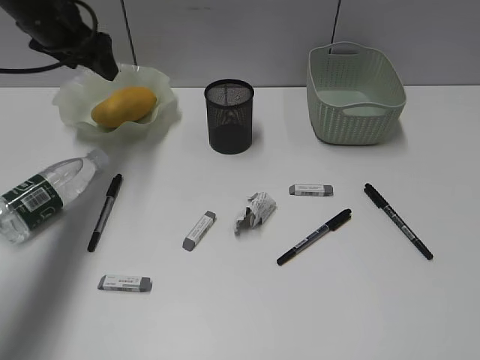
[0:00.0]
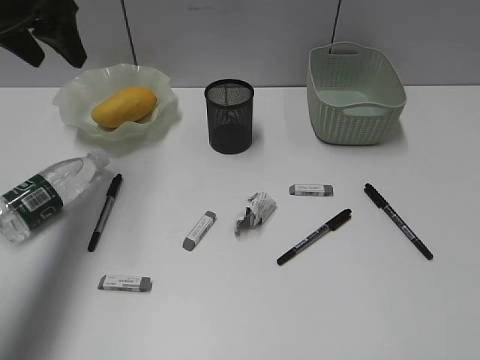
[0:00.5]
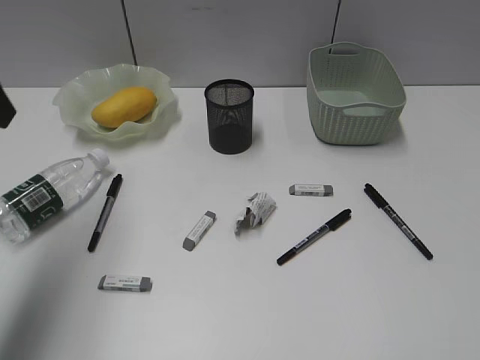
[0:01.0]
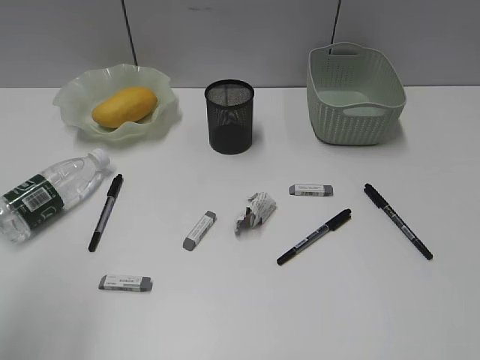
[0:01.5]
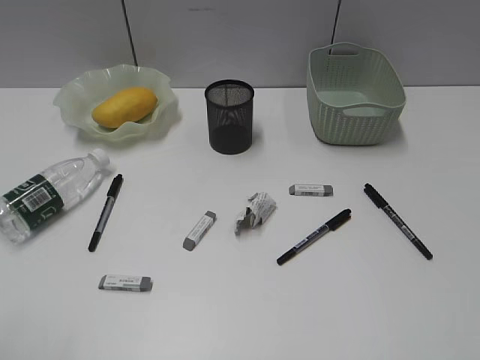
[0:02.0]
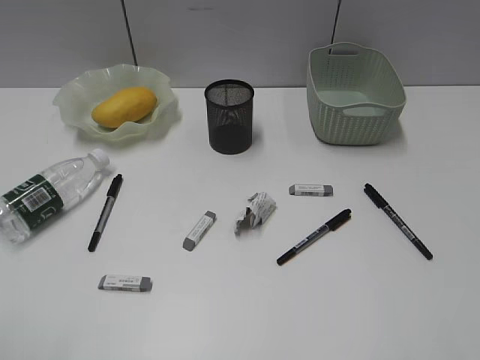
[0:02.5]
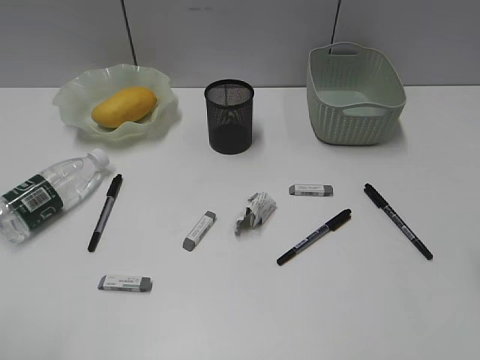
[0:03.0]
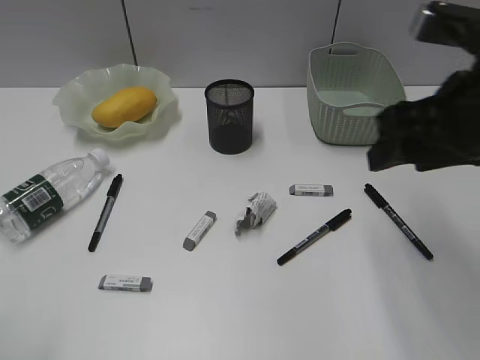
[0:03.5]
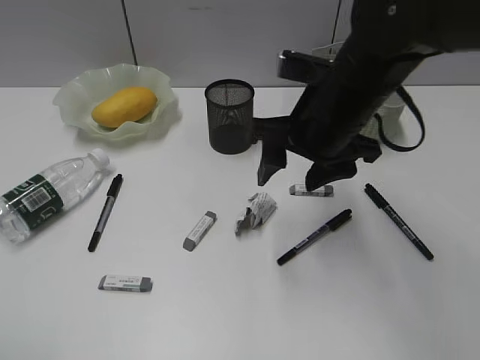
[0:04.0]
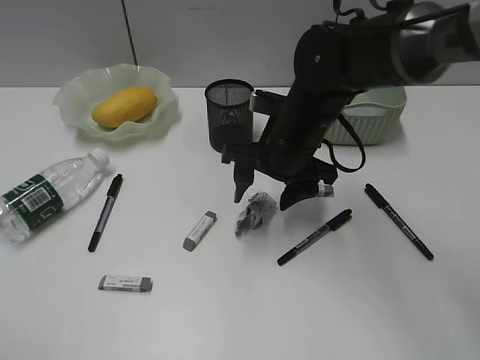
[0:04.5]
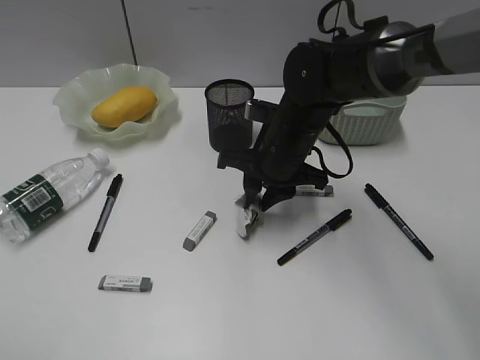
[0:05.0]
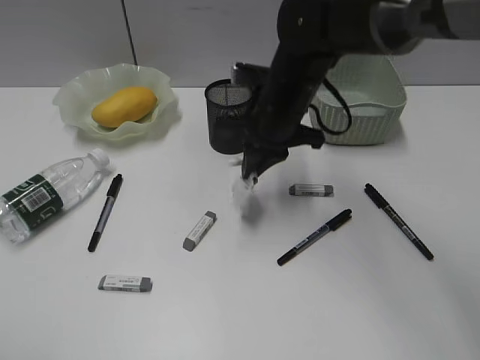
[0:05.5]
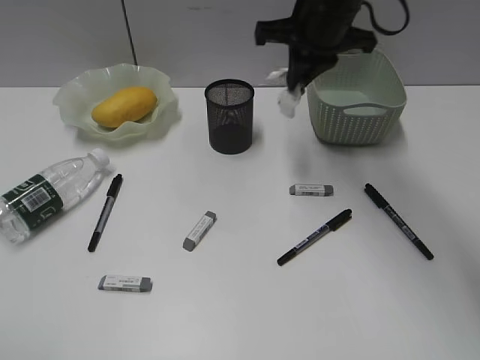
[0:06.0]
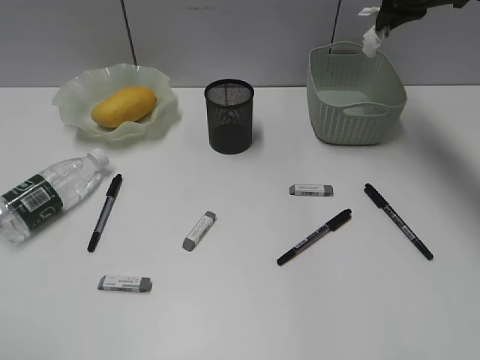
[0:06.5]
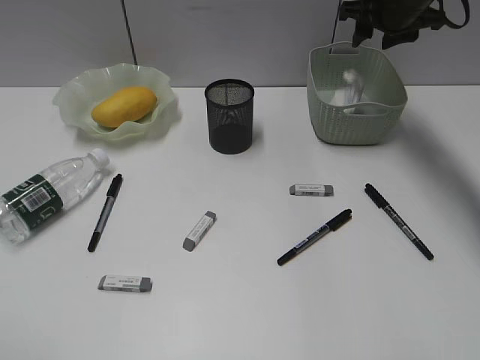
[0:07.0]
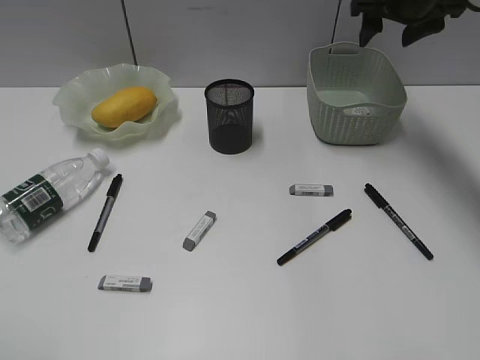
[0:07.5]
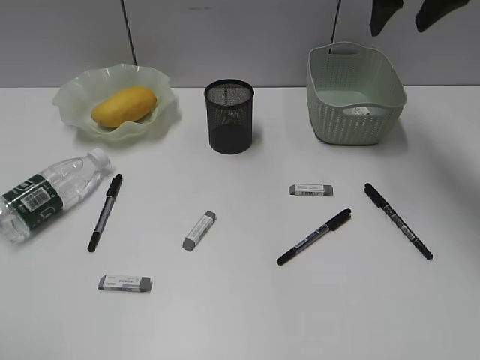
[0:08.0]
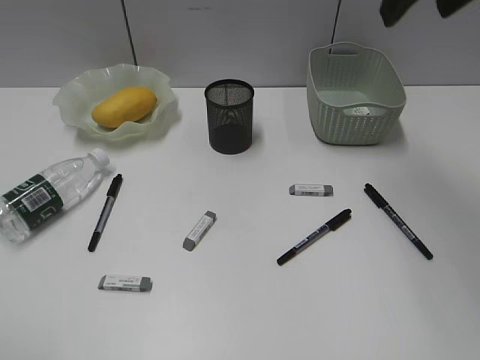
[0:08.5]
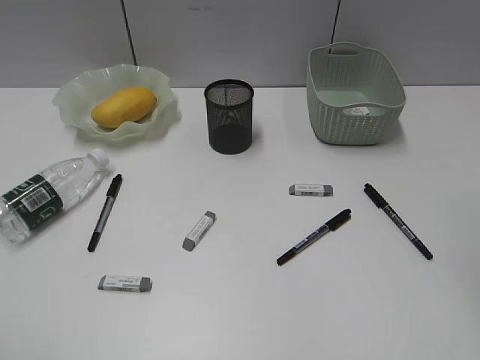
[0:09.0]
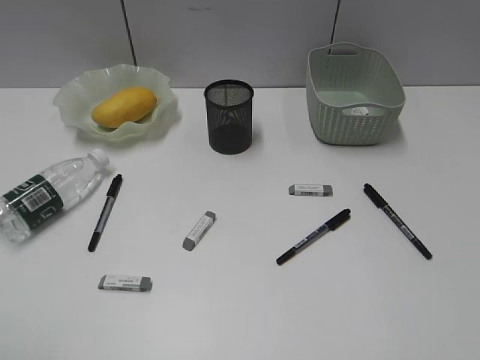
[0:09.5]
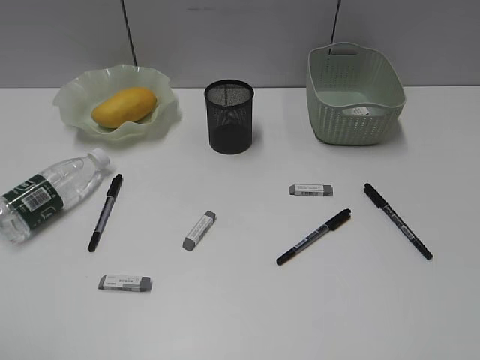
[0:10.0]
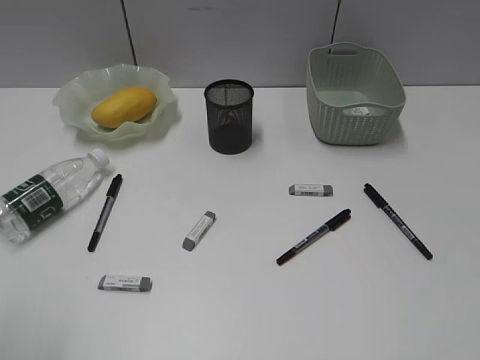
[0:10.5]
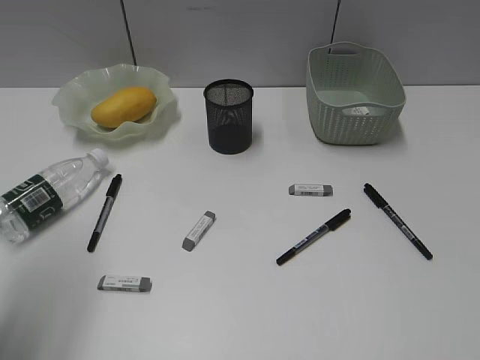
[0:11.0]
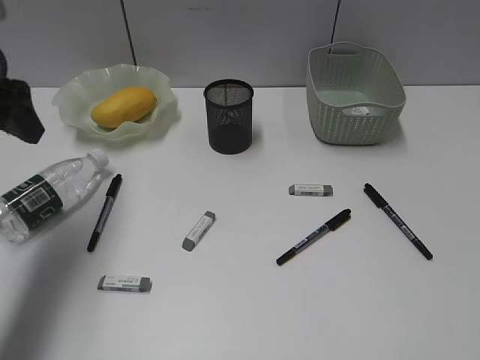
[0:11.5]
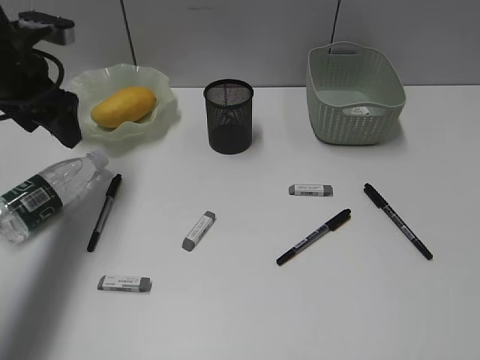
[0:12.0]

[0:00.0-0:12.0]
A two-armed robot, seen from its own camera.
Step, 0:00.0 to 0:05.0: Grasp the waste paper with right gripper.
Step, 0:05.5 to 0:07.0: Place the waste paper in the basket with right gripper.
0:00.0 to 0:02.0: The left gripper travels backward by some 40 cm.
0:02.0 to 0:04.0: The right gripper shifts about 40 cm forward and to the left.
0:04.0 to 0:06.0: The right gripper shifts about 15 cm forward and upward, and closes its fingers.
0:06.0 to 0:08.0: The right gripper moves to the right and upward, some 10 cm, and opens up.
0:08.0 to 0:10.0: The right gripper is displaced backward by about 40 cm.
0:10.0 to 0:12.0: The left gripper moves forward, about 40 cm.

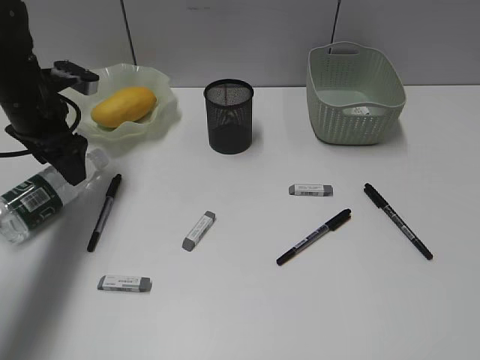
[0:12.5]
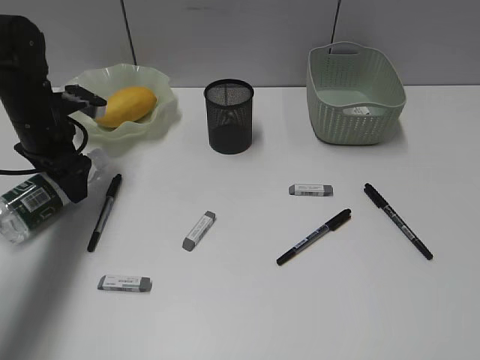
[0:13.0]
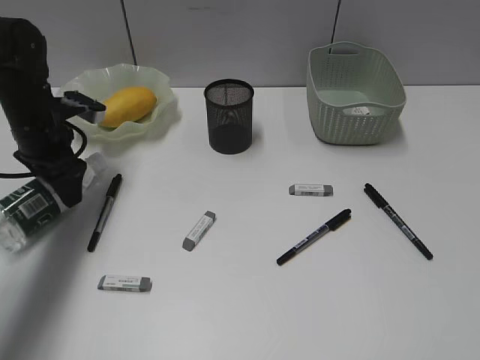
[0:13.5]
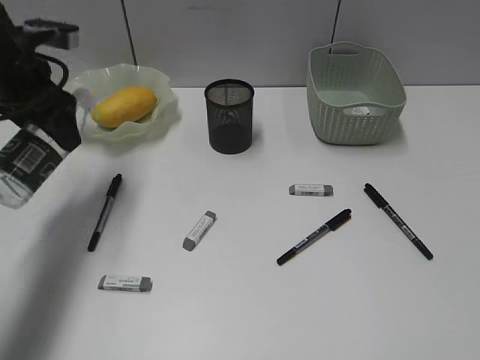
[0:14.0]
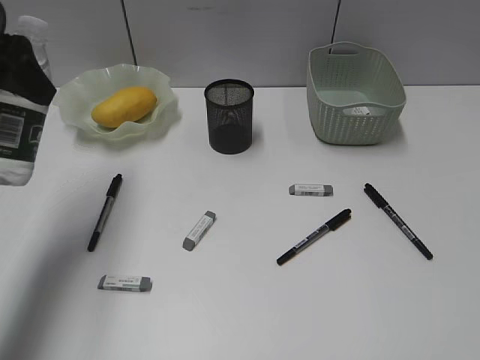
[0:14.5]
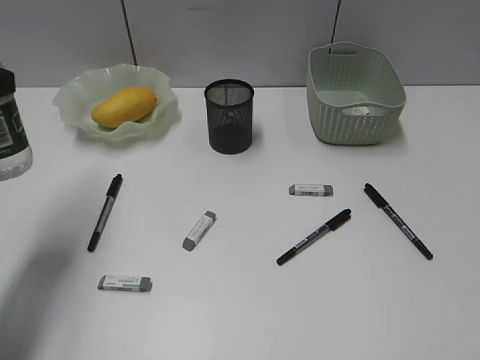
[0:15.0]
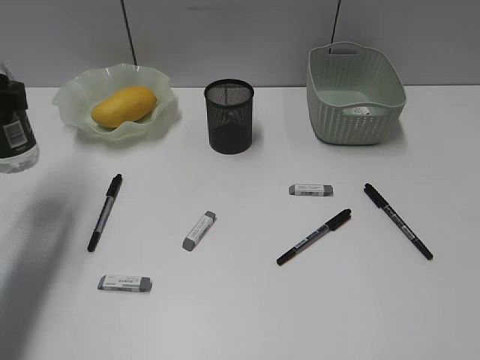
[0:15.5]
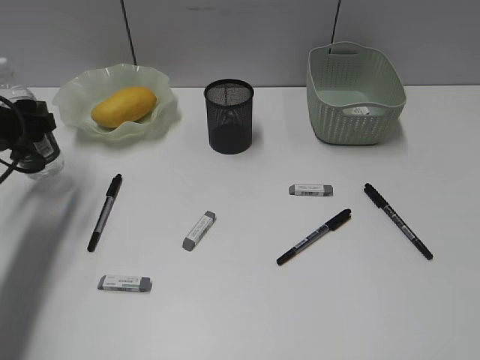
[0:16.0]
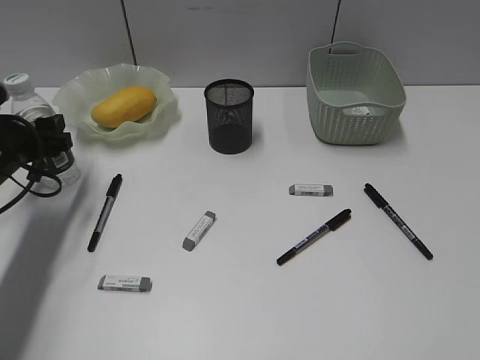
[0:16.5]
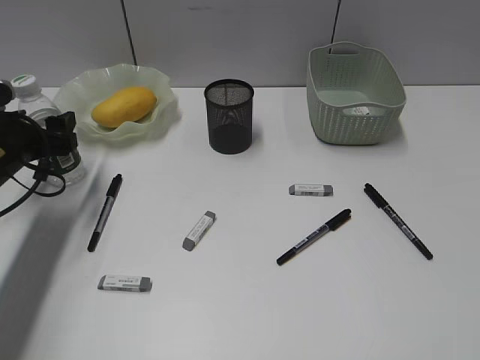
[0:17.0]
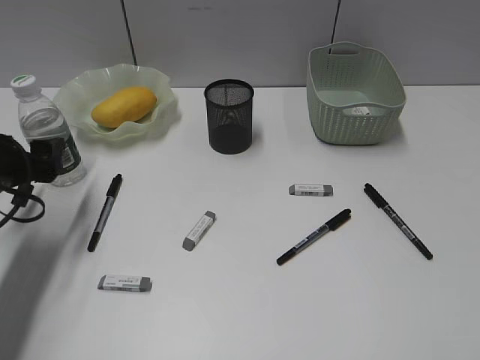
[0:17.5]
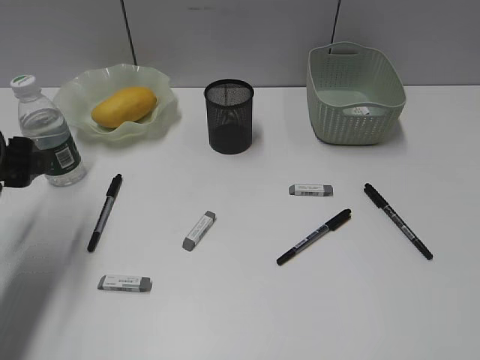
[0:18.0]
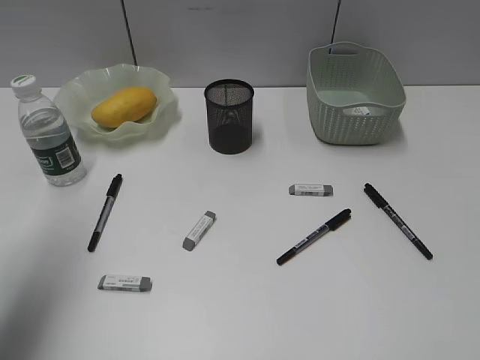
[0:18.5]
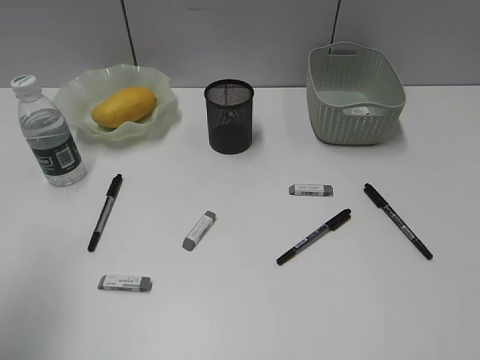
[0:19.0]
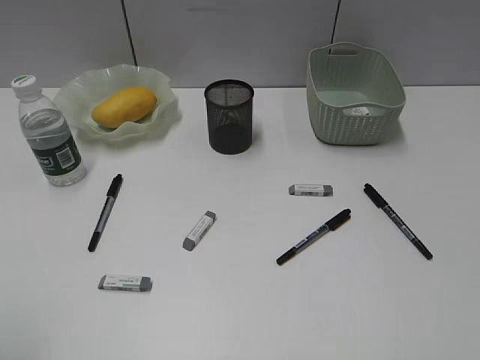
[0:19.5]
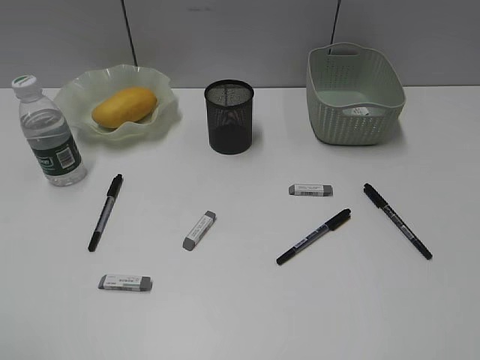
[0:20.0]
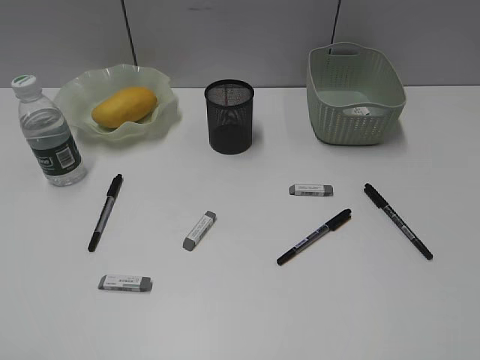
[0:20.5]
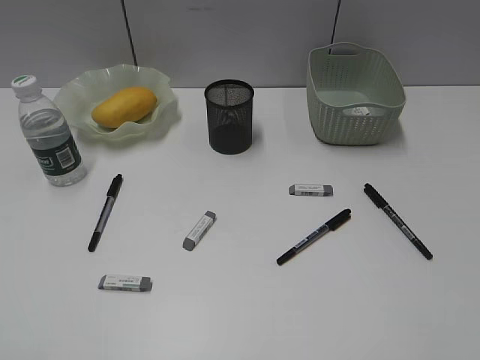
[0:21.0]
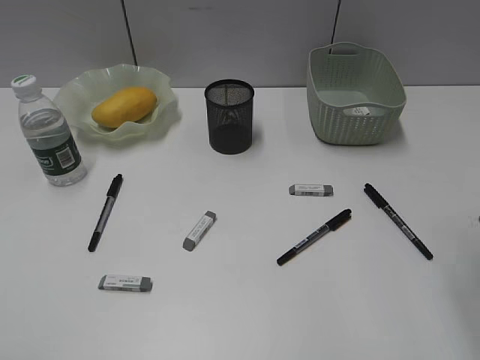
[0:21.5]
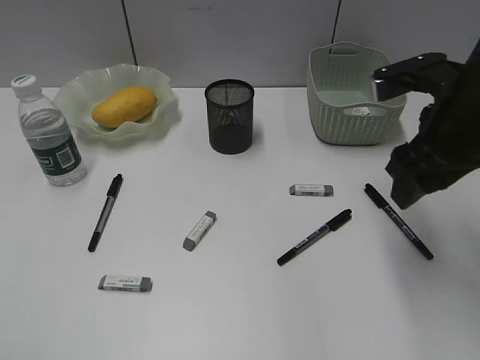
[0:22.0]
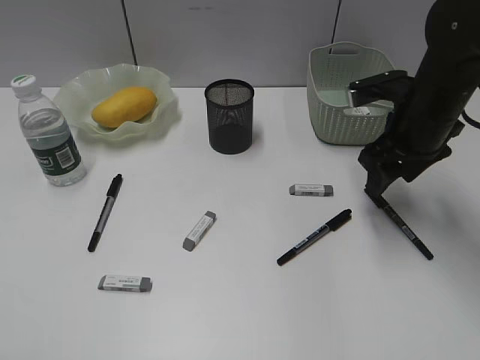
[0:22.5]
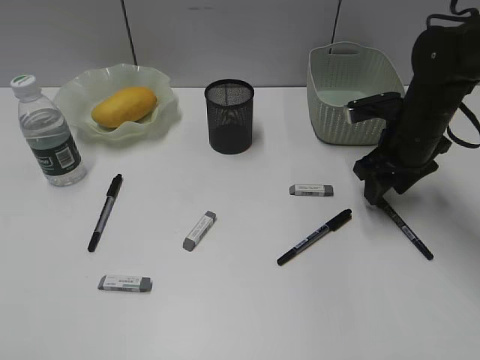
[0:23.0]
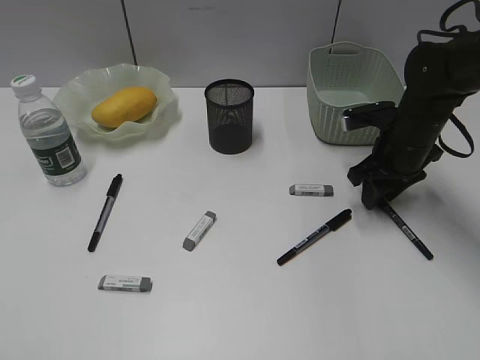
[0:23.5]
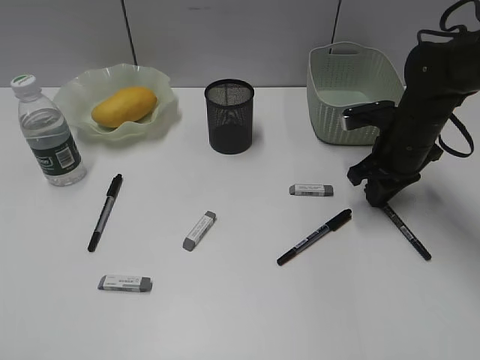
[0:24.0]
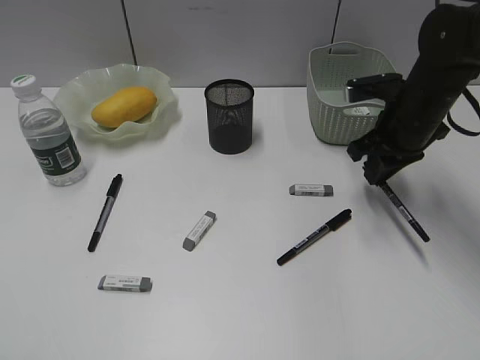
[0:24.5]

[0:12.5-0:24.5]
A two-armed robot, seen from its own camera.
Step, 0:13.5 to 0:17.5: Stand the bottle with left gripper.
Step, 0:18.0 to 0:24.0: Grasp the black pen with right gripper.
0:12.5 to 0:14.5: The left gripper shifts about 15 cm upward and backward.
0:14.5 to 0:16.5: The left gripper goes approximately 20 cm downward.
0:16.5 to 0:18.5: The left gripper is displaced upward and backward by about 20 cm.
0:18.5 to 0:20.5: The left gripper shifts approximately 25 cm backward.
0:20.5 to 0:22.5: The right gripper is displaced forward by approximately 35 cm.
0:22.5 to 0:24.5: The right gripper closes its fingers.

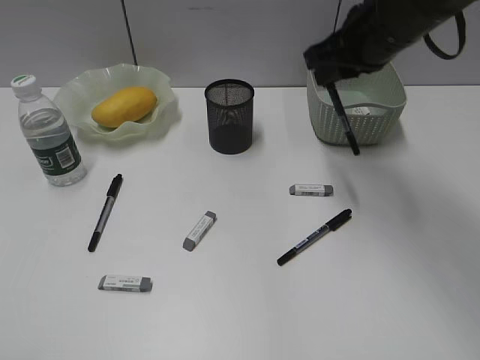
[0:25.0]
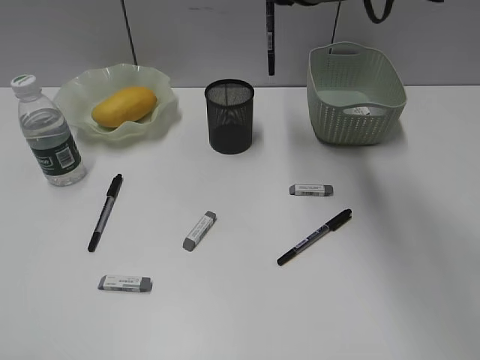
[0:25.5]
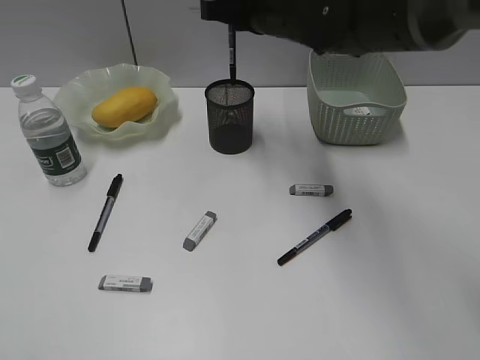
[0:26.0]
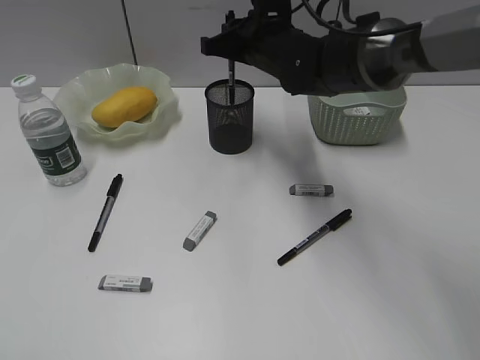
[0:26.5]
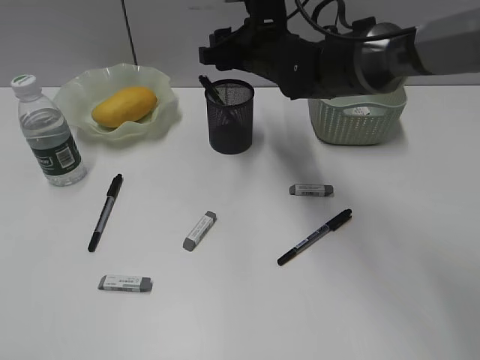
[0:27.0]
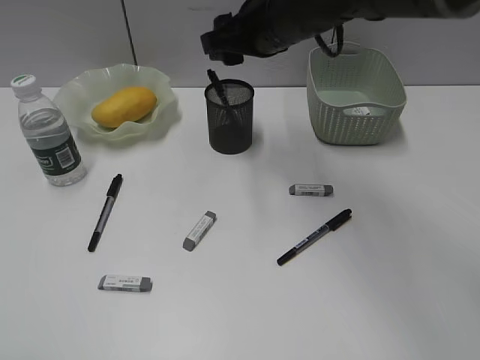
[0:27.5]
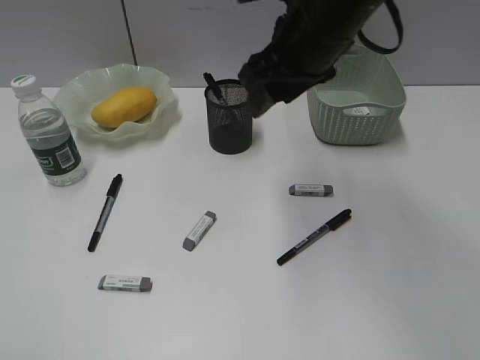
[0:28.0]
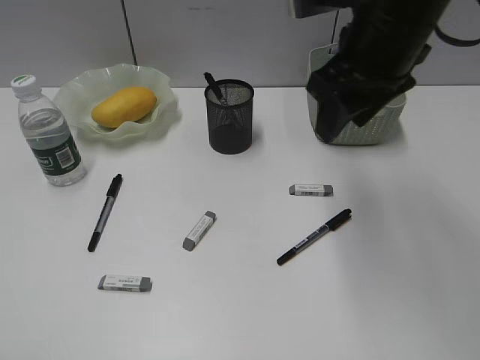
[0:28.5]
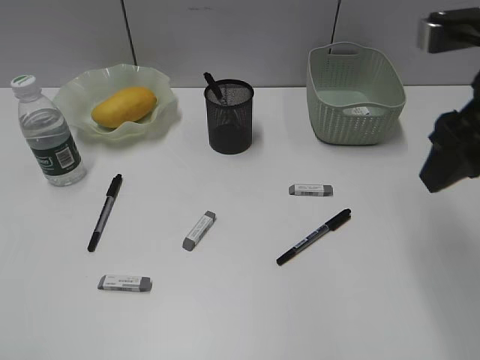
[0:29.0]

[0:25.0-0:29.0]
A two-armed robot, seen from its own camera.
Step, 0:25.0 to 0:27.0: Place the black pen in pen holder with right gripper.
0:25.0 to 0:27.0: The right gripper travels to the left, downward and forward by approximately 15 cm, and opens.
0:27.0 to 0:29.0: The right gripper shifts some 30 cm backward, to the right and upward.
